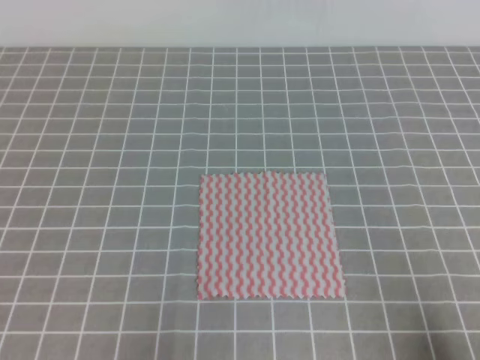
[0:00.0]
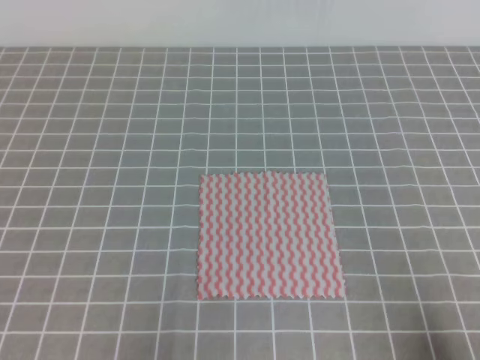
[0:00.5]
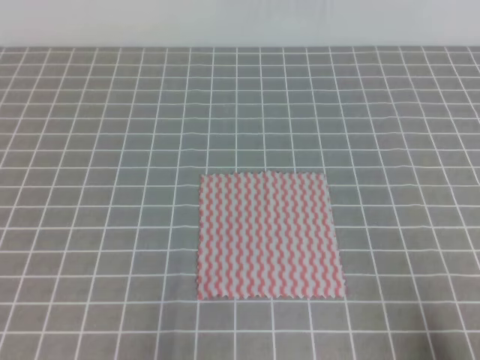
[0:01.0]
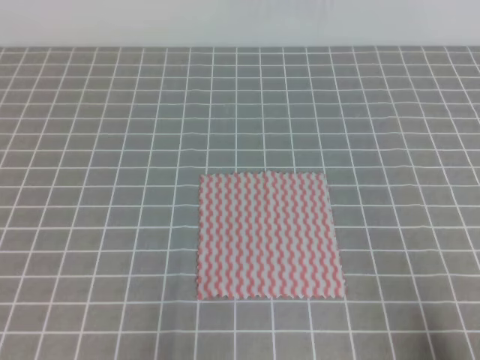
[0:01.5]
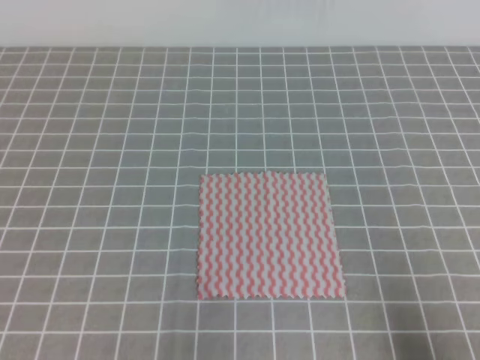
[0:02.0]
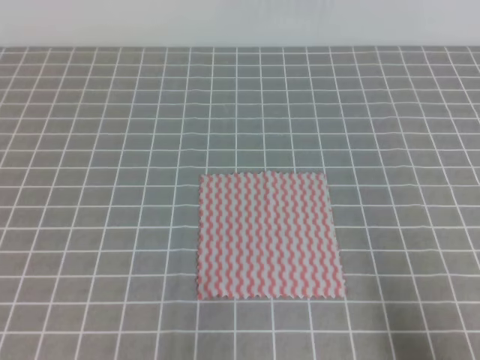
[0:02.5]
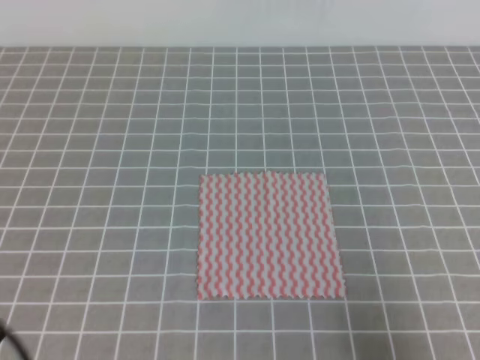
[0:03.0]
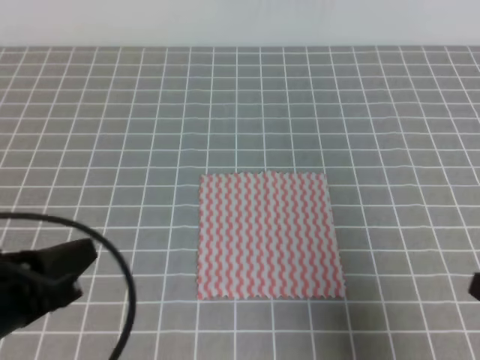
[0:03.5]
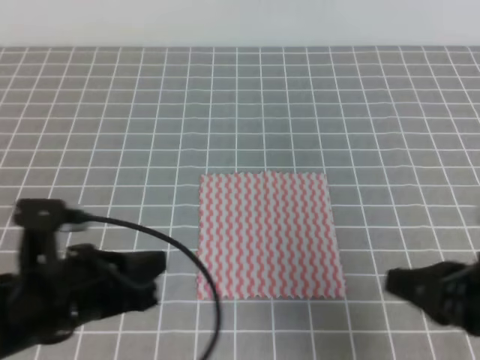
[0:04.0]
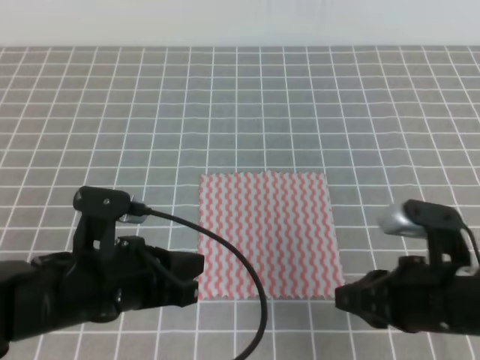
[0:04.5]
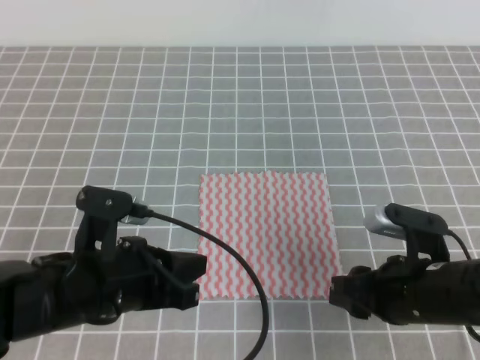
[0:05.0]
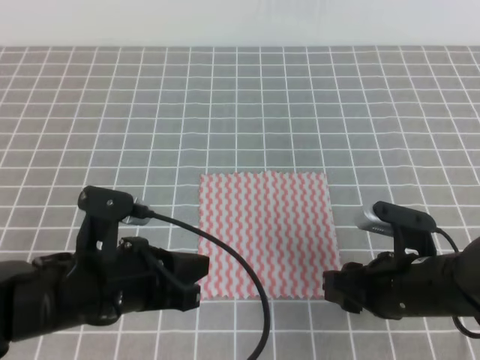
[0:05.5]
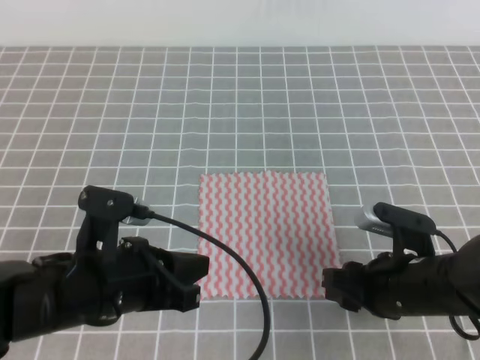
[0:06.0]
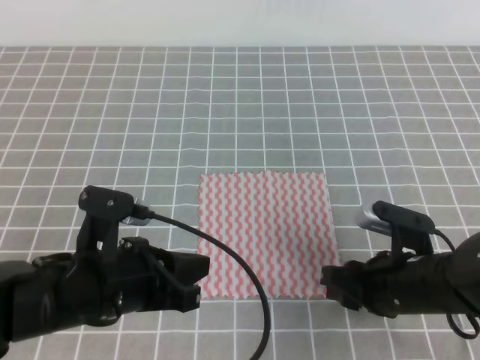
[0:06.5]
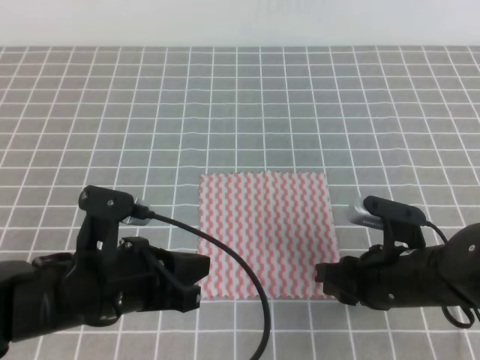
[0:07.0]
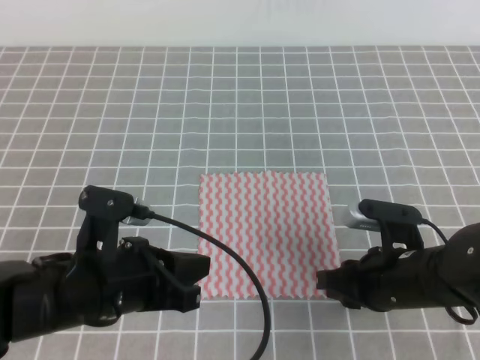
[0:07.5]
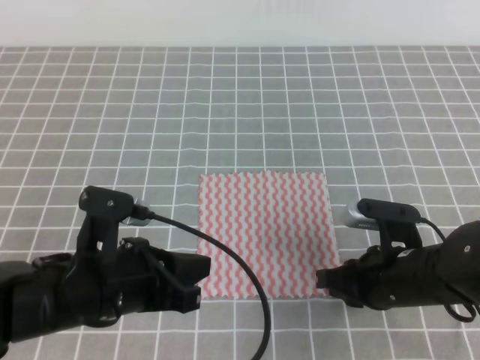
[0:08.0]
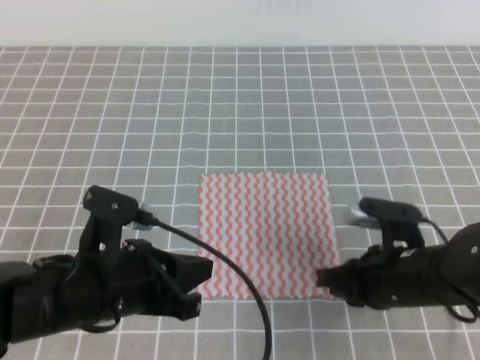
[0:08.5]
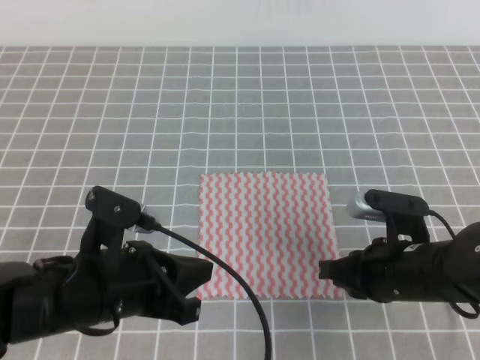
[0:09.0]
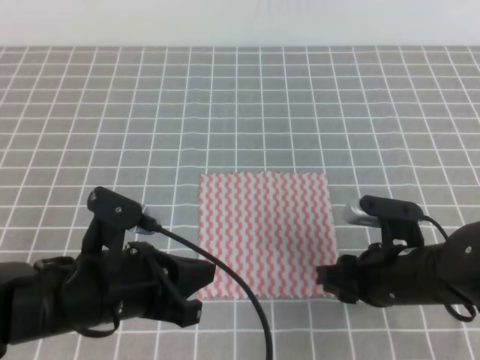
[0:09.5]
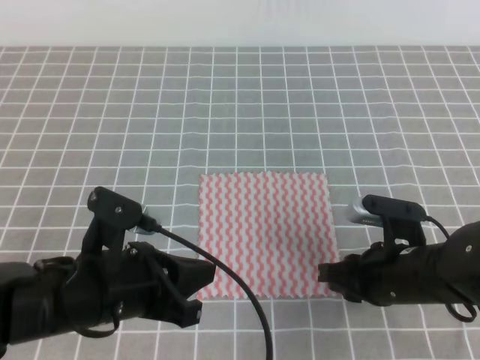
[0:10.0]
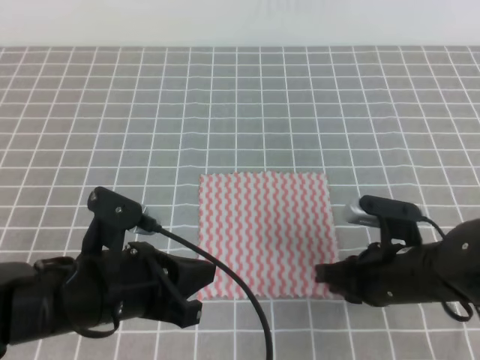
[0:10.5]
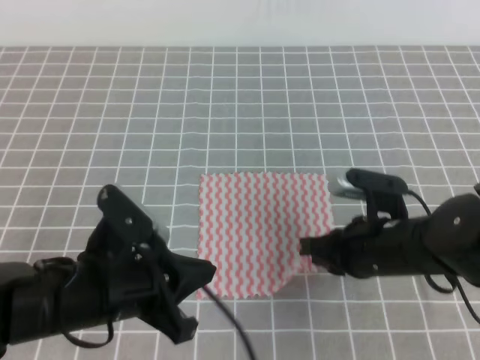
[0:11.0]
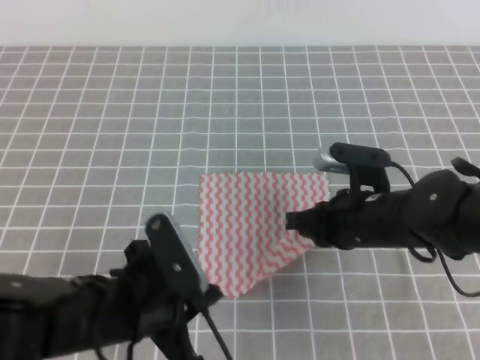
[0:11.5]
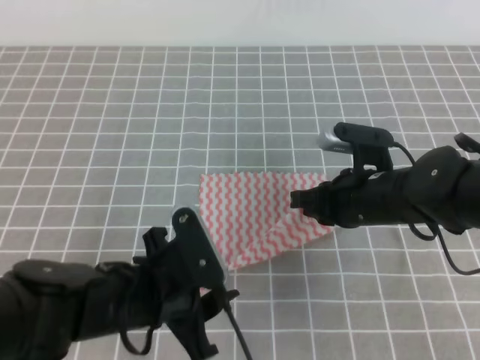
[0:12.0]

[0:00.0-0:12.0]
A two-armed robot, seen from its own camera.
0:02.0 to 0:04.0: The right gripper shifts approximately 15 cm forward, to the left and upward; the left gripper is displaced forward and to the right by roughly 15 cm.
0:04.0 to 0:06.0: The right gripper moves downward, forward and to the left, approximately 15 cm, and opens.
0:06.0 to 0:08.0: The right gripper closes its fingers.
0:08.0 to 0:10.0: The right gripper opens, then closes once more.
0:10.0 to 0:12.0: The left gripper opens up, while the right gripper shifts roughly 5 cm forward, and closes.

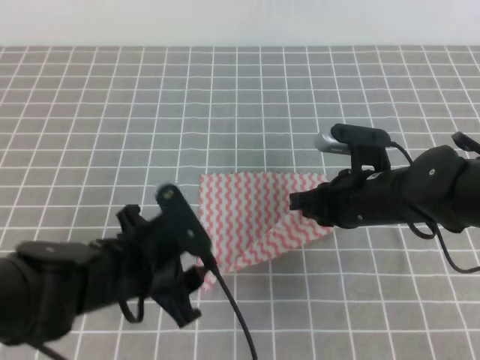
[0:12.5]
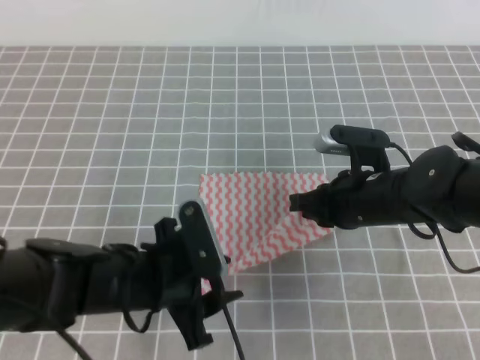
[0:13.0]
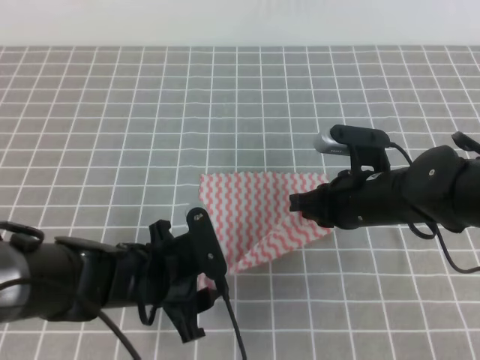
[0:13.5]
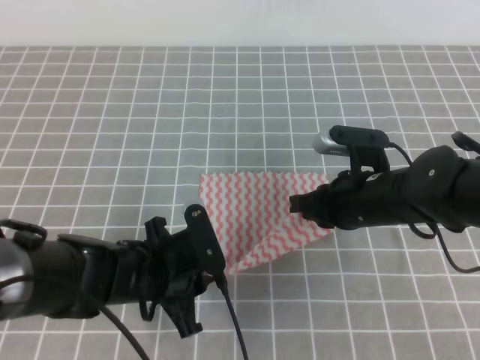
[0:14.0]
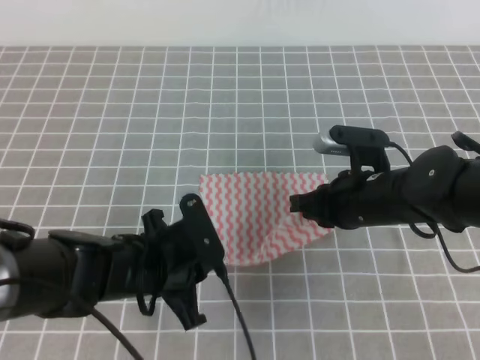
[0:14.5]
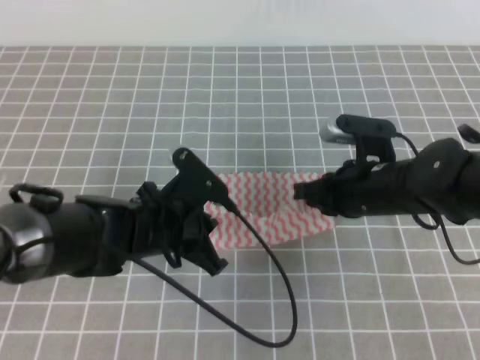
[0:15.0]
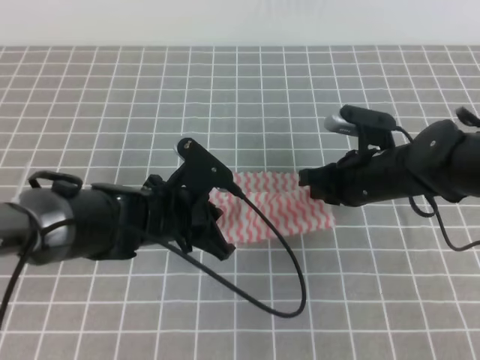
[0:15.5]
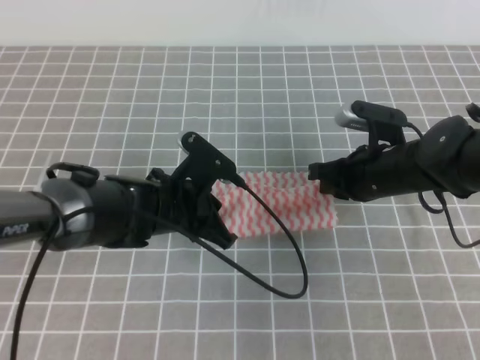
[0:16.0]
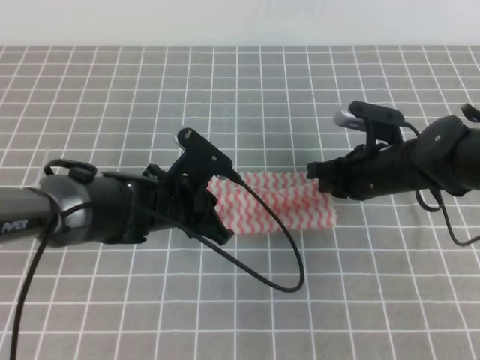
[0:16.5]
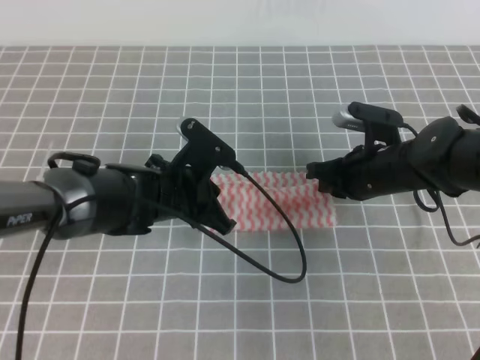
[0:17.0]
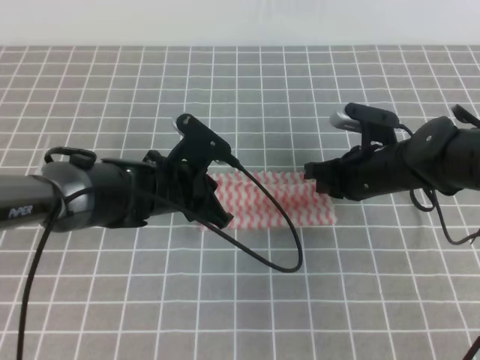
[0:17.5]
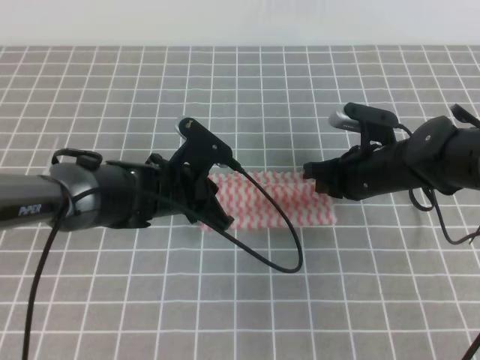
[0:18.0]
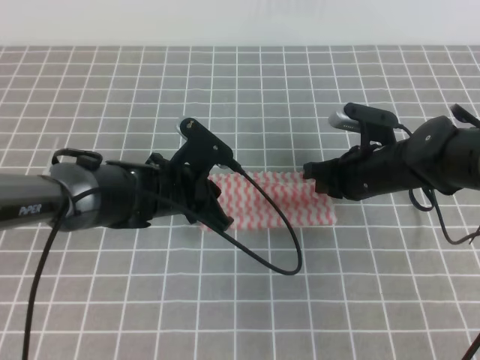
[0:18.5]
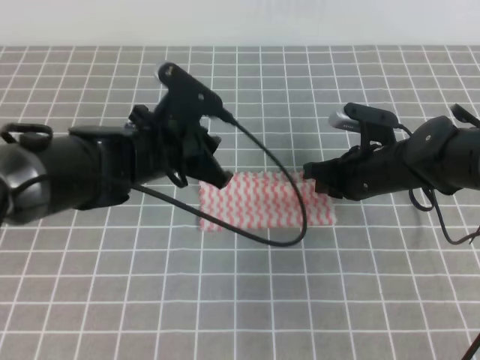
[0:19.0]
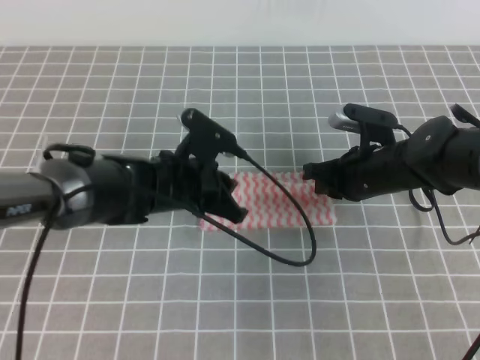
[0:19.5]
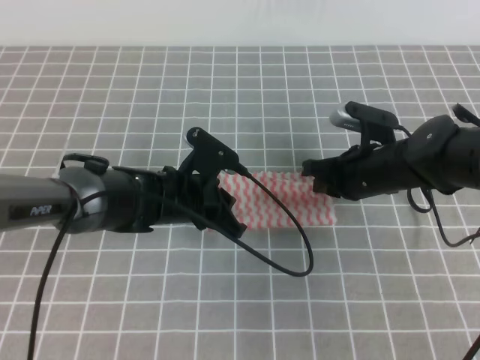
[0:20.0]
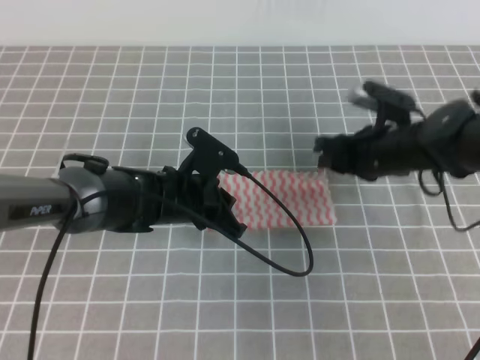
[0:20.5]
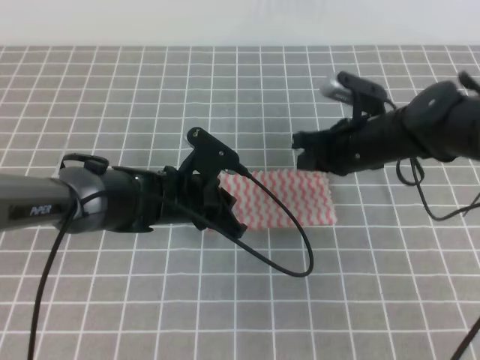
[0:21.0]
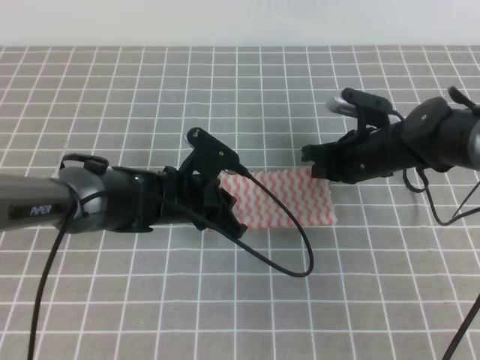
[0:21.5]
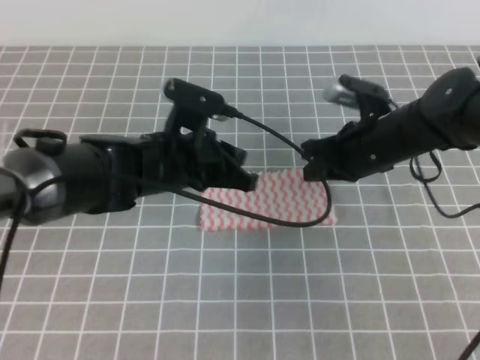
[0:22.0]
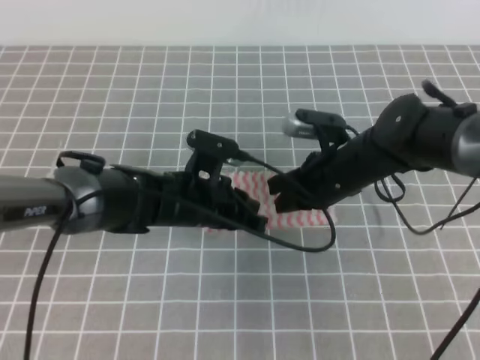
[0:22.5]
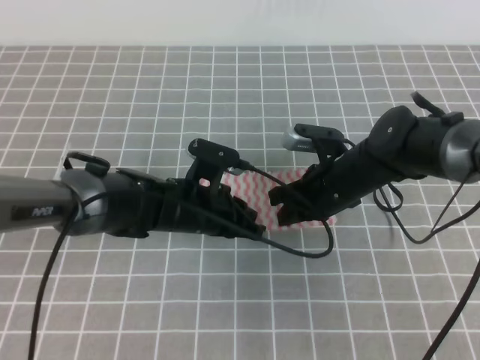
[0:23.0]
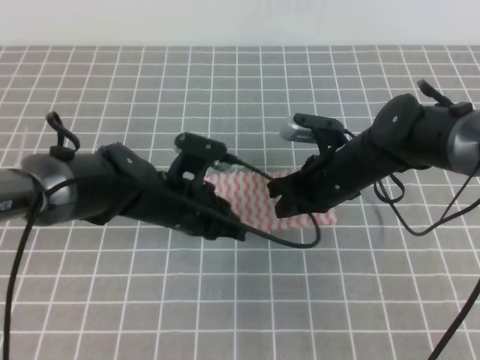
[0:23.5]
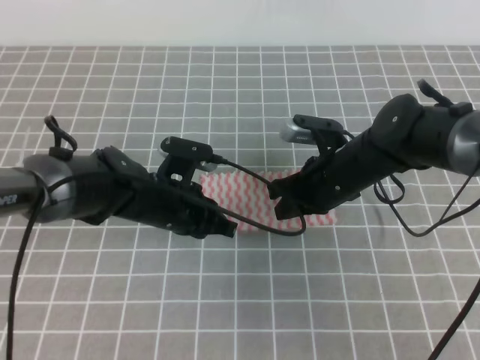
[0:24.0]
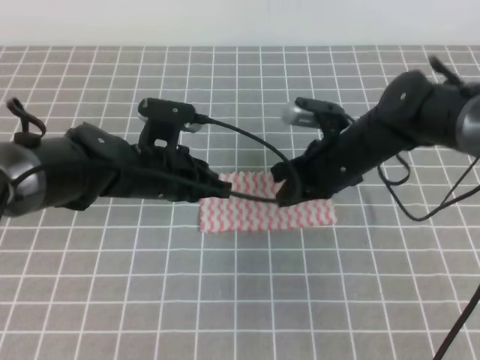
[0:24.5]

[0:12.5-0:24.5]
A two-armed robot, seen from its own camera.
0:12.5 to 0:14.5: The left gripper closes.
0:14.5 to 0:16.5: The left gripper travels forward by roughly 10 cm. Meanwhile the right gripper travels forward by approximately 5 cm.
0:16.5 to 0:18.5: The grippers move only a little.
0:18.5 to 0:20.5: The right gripper opens its fingers.
0:20.5 to 0:22.5: The right gripper moves approximately 5 cm, and closes.
0:22.5 to 0:24.5: The left gripper changes place by approximately 5 cm.

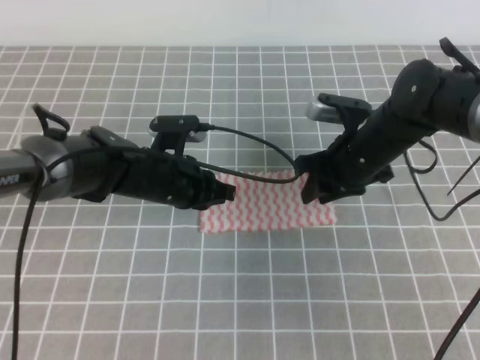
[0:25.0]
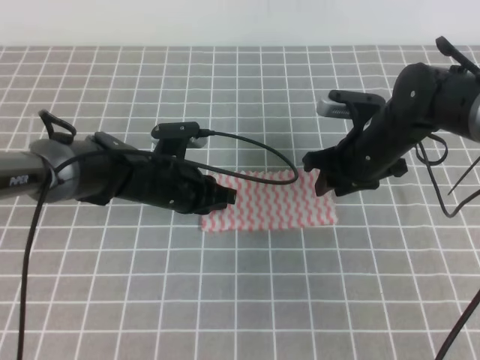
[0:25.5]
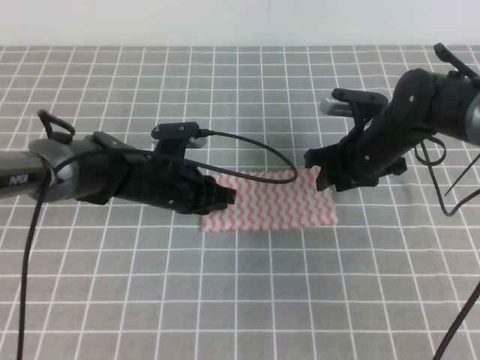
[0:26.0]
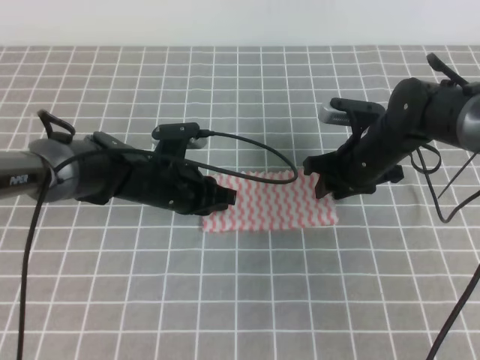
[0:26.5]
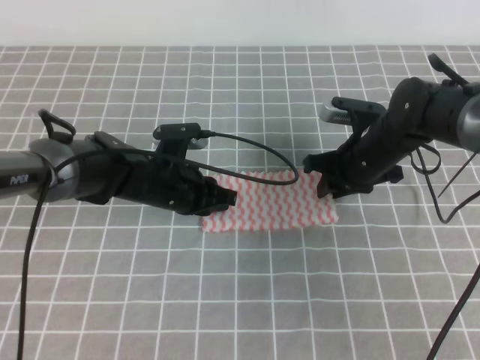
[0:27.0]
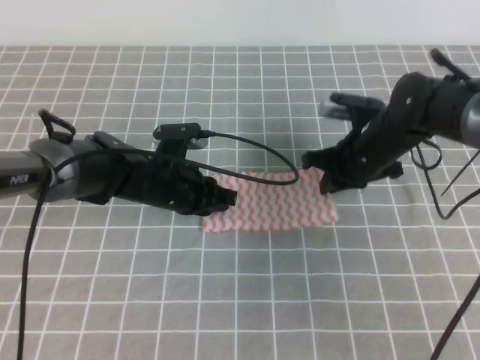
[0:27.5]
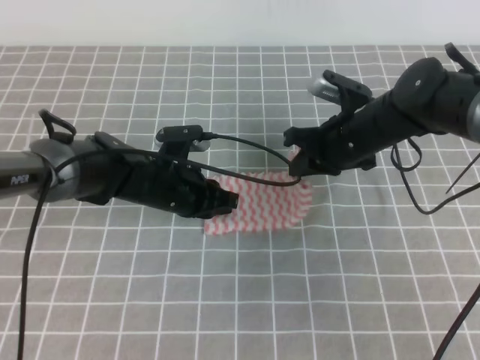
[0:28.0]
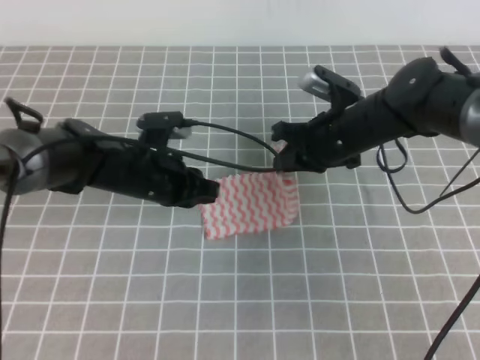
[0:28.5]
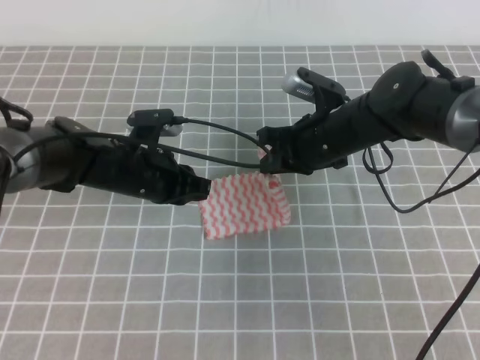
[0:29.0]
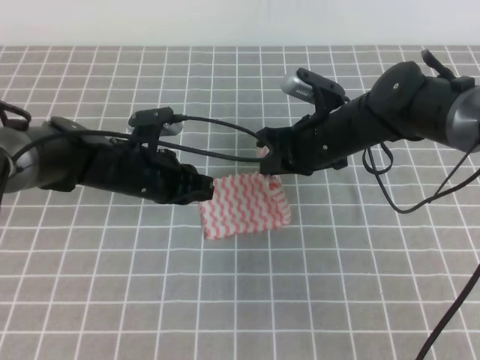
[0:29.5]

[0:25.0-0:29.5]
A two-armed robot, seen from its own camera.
0:25.0 to 0:27.0: The grippers move only a little.
0:27.0 to 0:29.5: The right gripper moves to the left, about 5 cm, and closes its fingers.
